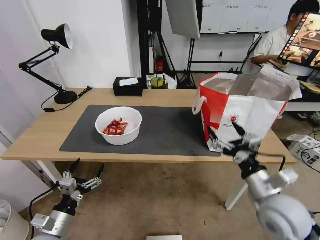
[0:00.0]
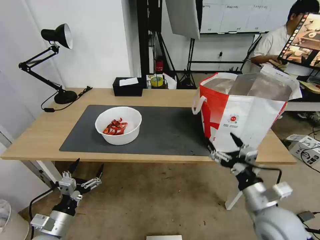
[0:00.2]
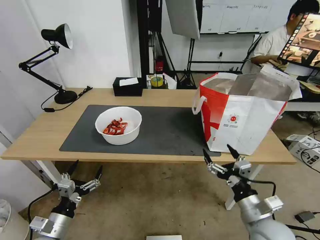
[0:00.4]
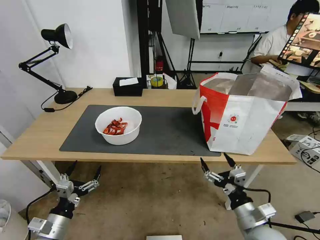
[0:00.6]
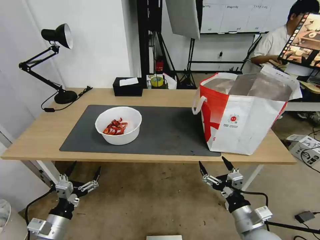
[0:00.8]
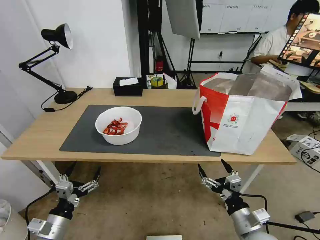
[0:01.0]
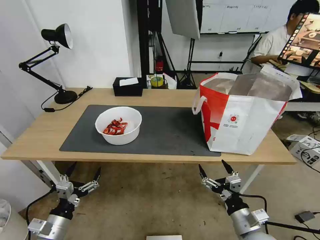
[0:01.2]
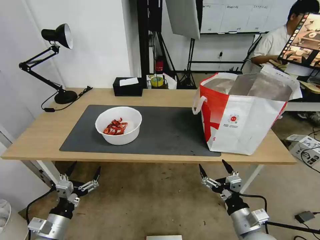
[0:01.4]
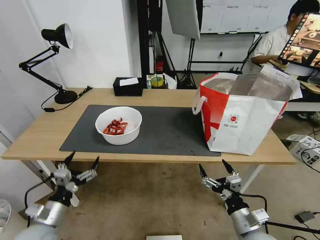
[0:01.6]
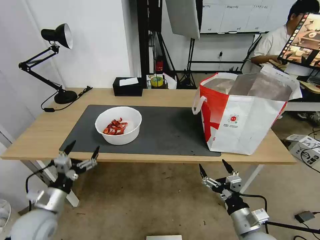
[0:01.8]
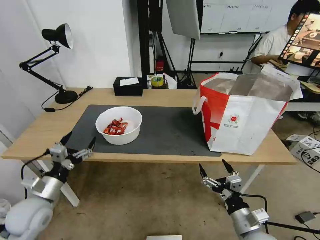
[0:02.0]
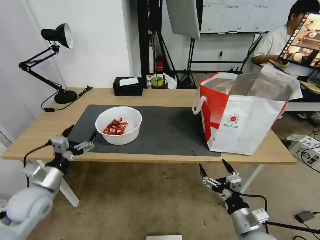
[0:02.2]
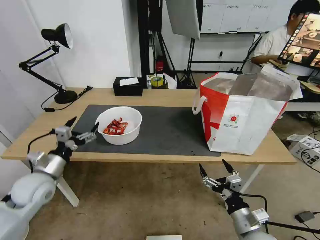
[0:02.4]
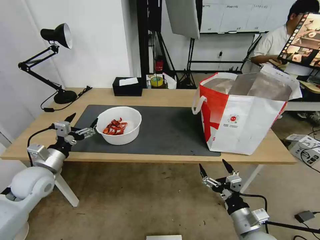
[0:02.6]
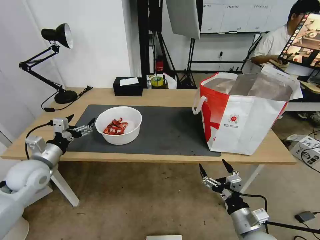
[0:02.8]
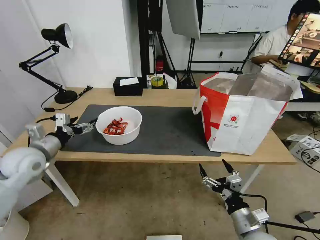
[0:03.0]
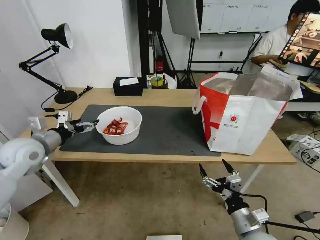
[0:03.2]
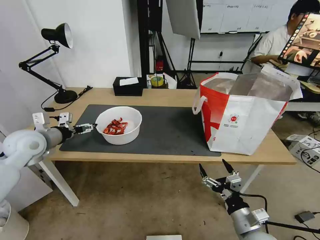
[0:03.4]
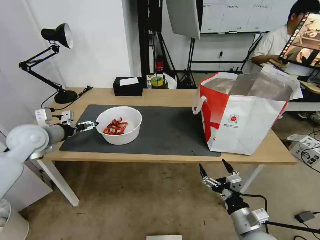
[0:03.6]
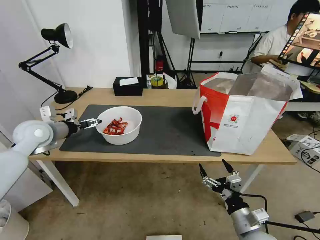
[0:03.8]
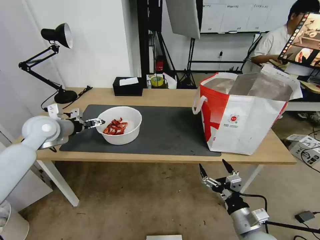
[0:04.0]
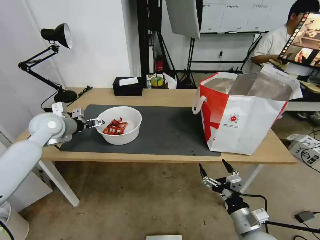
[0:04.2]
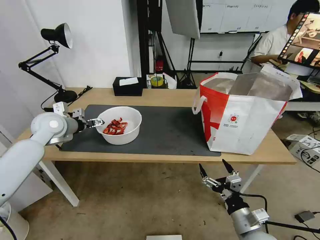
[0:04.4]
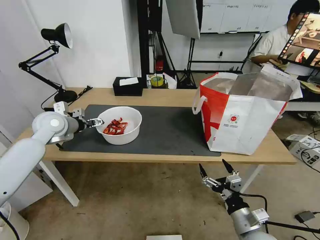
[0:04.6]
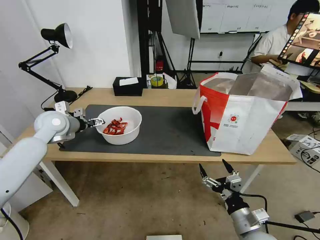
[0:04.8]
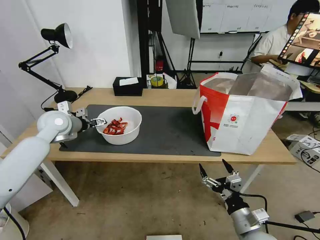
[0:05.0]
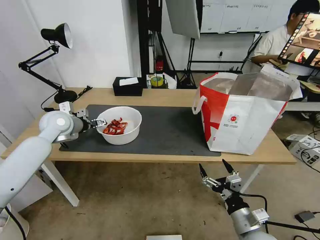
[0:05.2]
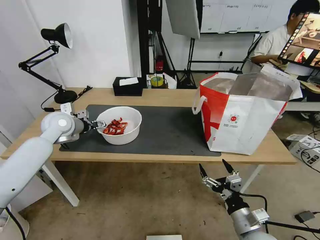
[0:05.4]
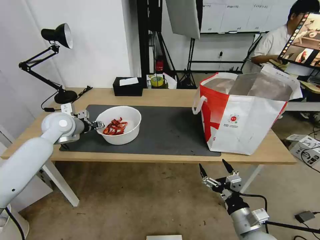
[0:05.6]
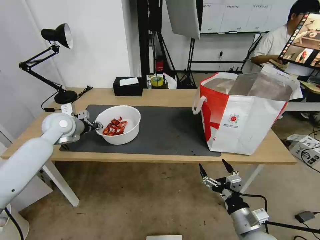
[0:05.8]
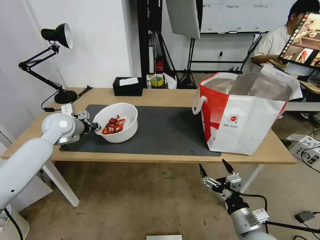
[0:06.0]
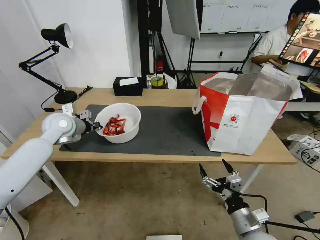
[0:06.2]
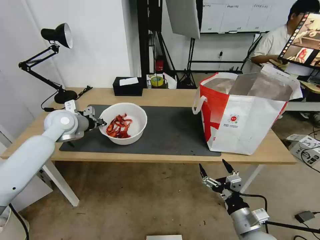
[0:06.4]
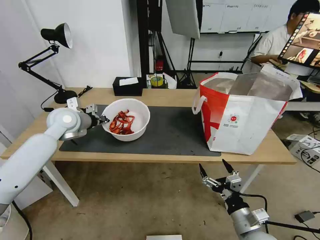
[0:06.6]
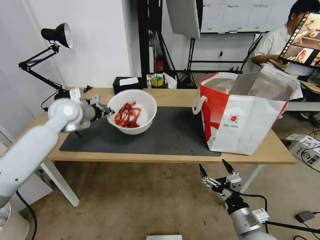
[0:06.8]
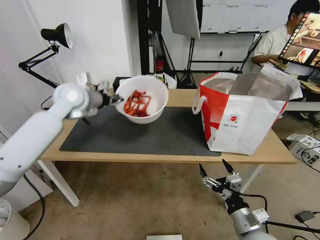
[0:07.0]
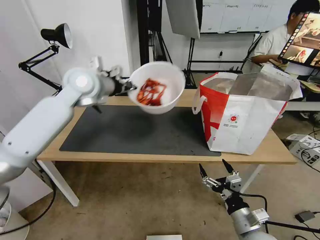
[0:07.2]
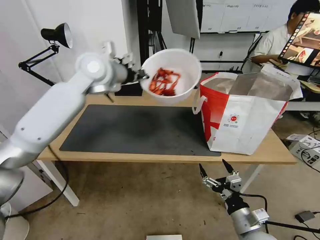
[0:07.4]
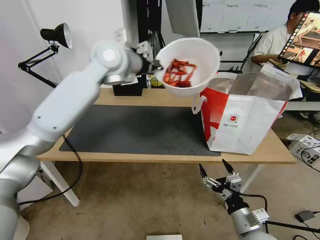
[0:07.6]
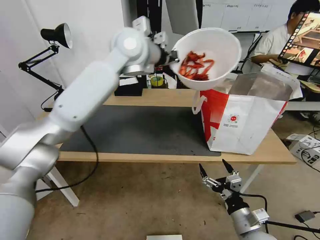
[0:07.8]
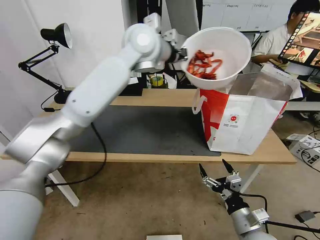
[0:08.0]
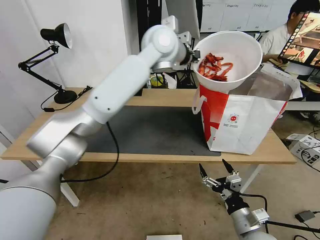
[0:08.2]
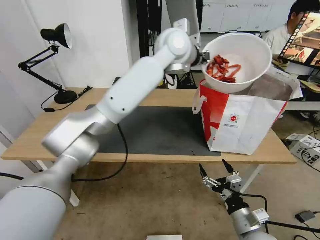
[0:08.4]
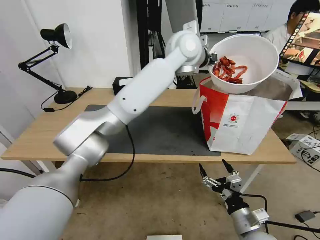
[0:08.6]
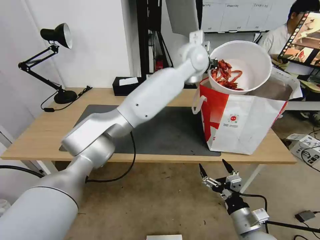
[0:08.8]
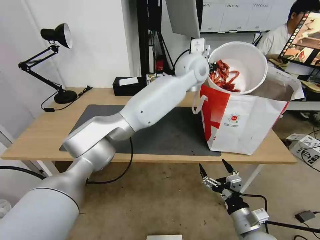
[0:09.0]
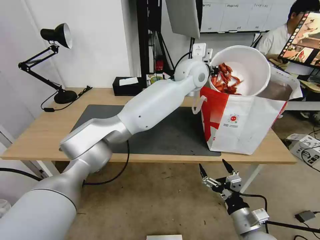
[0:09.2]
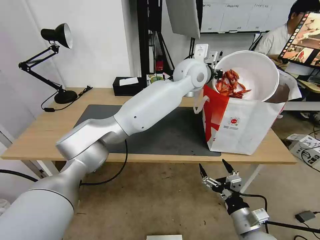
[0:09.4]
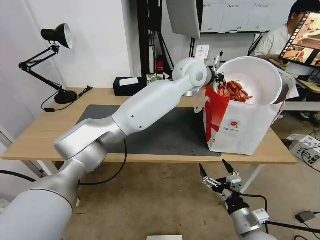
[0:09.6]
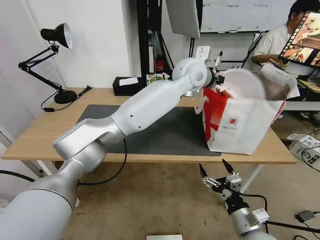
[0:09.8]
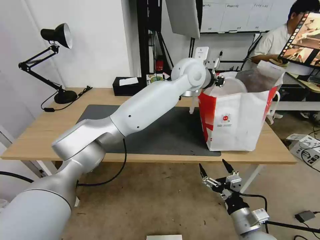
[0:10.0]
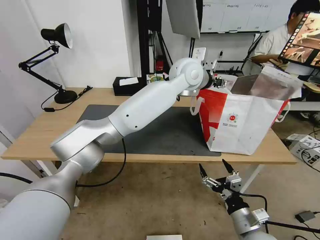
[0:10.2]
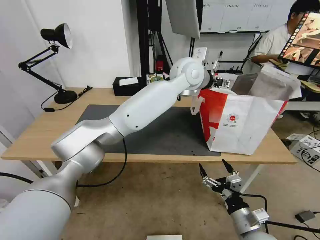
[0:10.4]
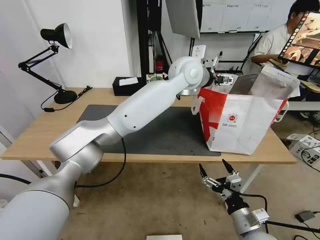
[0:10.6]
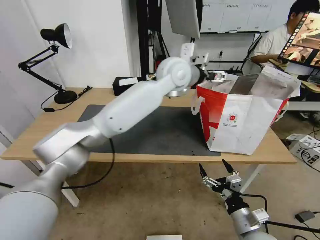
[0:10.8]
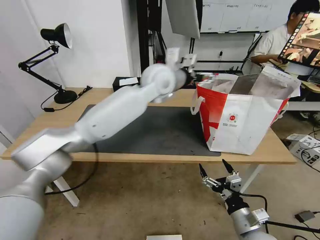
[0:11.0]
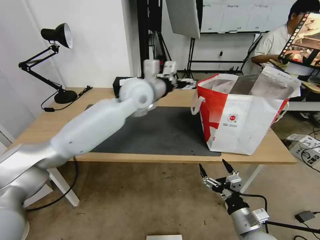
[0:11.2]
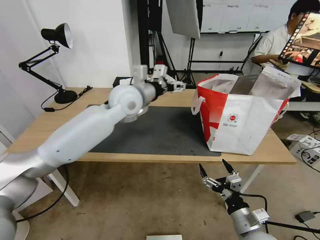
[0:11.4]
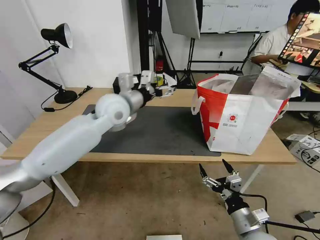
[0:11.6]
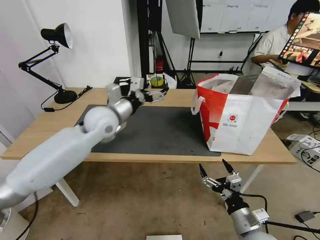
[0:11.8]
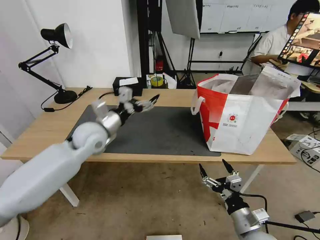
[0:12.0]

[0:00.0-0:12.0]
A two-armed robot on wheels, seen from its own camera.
Task of the whole recording: Pick up the trash from the table and place it into the takeout bag.
0:00.0 to 0:01.6: The right gripper shifts roughly 15 cm downward and backward.
0:01.6 to 0:03.0: The left gripper heads forward and upward, covering approximately 25 cm.
0:03.0 to 0:04.4: The left gripper heads forward, covering roughly 10 cm.
0:04.4 to 0:06.0: The left gripper closes its fingers.
0:06.0 to 0:07.6: The left gripper heads to the right and upward, covering some 30 cm.
0:07.6 to 0:09.0: The left gripper goes about 25 cm to the right.
0:09.0 to 0:10.4: The left gripper opens its fingers.
0:10.4 to 0:12.0: The left gripper travels to the left and downward by about 35 cm.

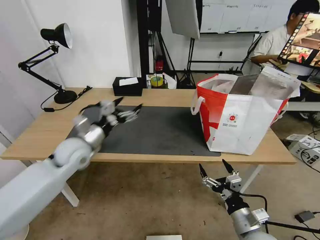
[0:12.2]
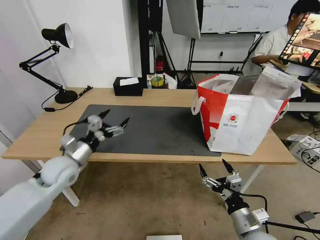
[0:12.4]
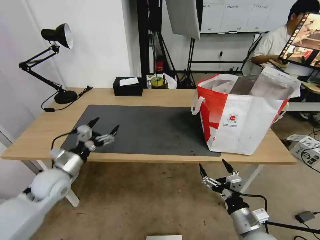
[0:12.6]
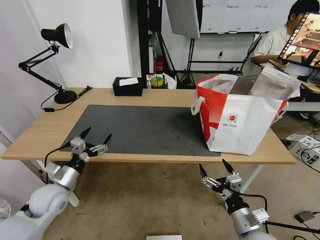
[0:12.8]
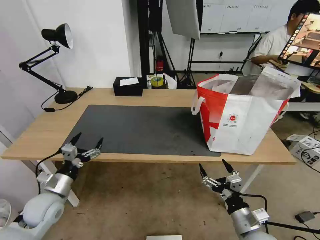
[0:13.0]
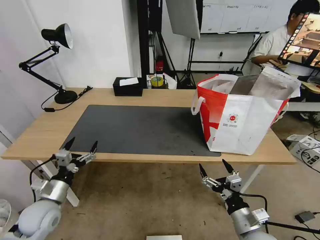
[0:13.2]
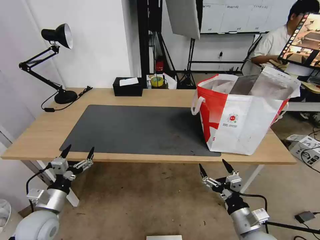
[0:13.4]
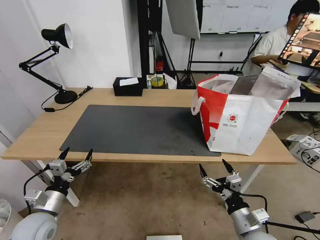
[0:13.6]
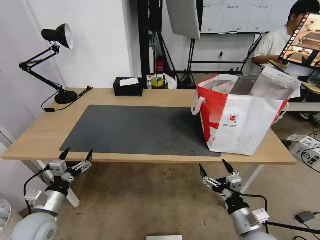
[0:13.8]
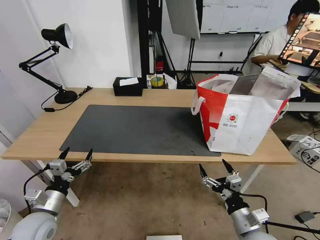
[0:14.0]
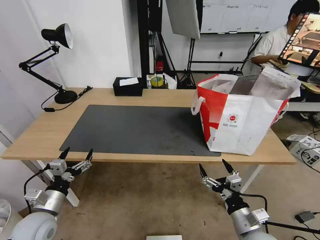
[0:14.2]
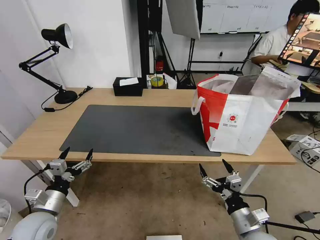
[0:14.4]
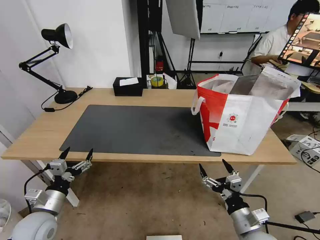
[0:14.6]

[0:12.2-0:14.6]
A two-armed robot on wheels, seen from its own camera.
Task of the whole recording: Pick up the trash from the table and place it into the takeout bag.
0:12.2 to 0:13.4: The left gripper heads backward, downward and to the left, covering some 20 cm.
0:13.4 to 0:14.6: The two grippers keep their place.

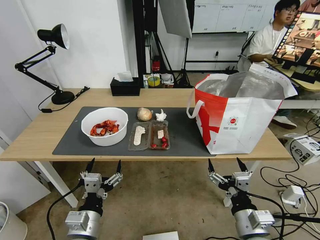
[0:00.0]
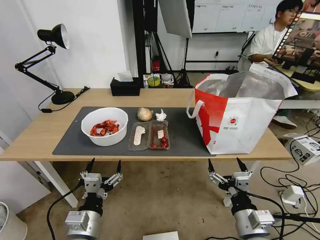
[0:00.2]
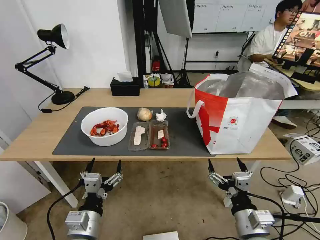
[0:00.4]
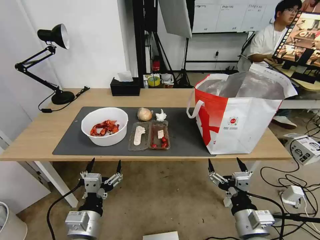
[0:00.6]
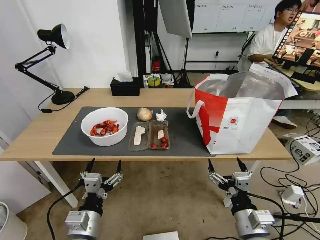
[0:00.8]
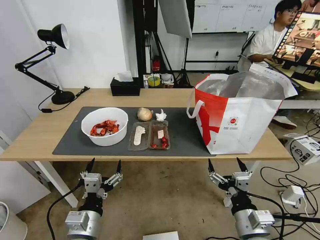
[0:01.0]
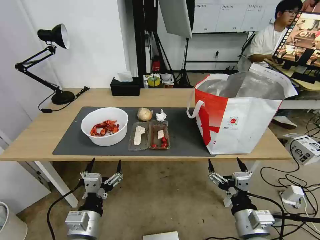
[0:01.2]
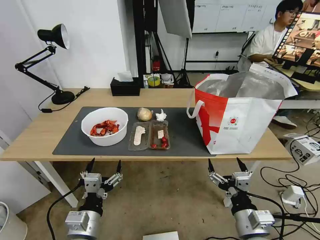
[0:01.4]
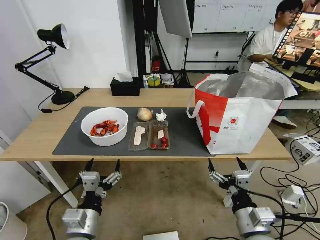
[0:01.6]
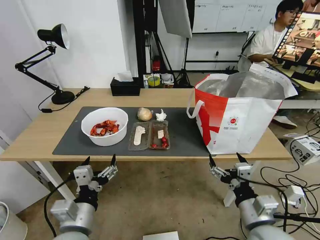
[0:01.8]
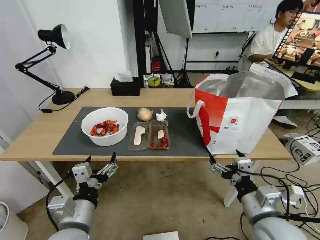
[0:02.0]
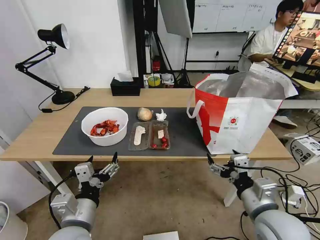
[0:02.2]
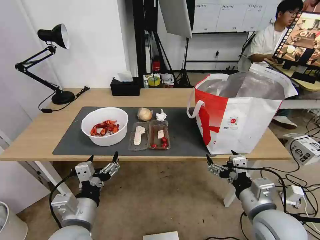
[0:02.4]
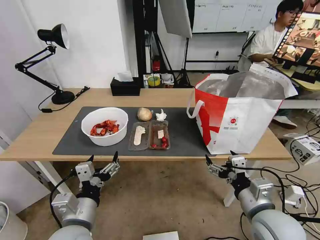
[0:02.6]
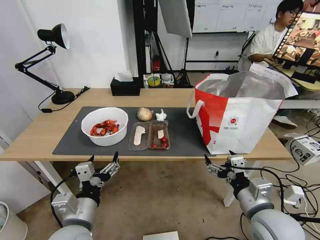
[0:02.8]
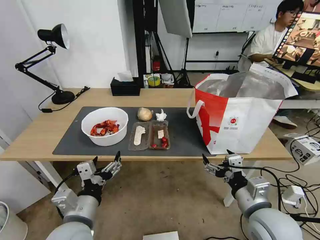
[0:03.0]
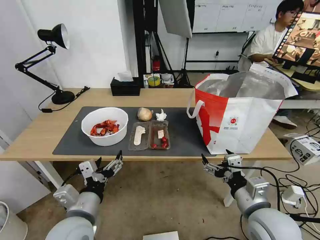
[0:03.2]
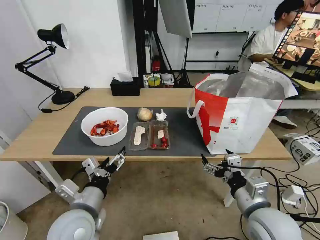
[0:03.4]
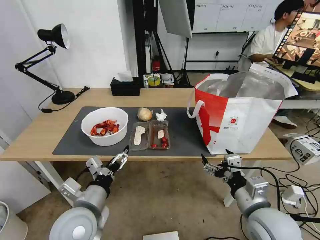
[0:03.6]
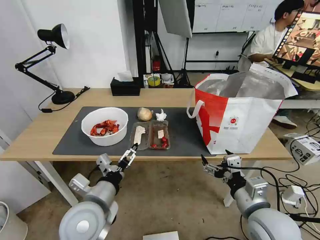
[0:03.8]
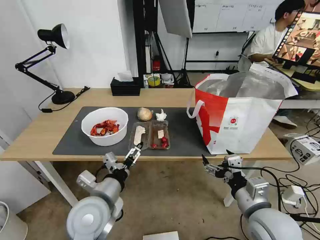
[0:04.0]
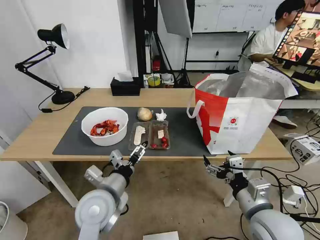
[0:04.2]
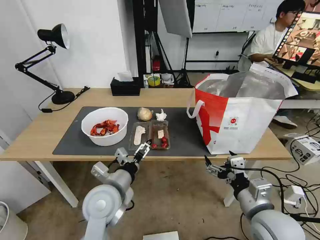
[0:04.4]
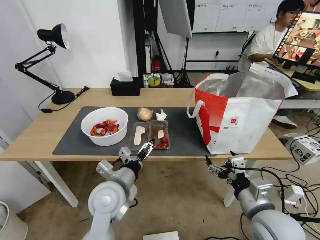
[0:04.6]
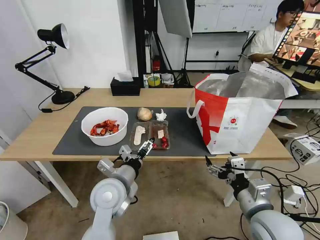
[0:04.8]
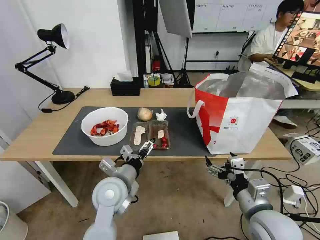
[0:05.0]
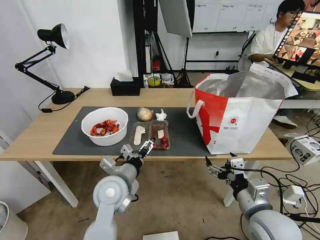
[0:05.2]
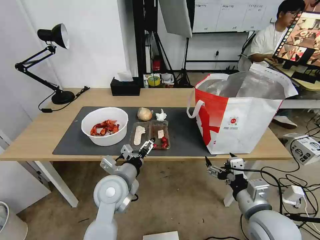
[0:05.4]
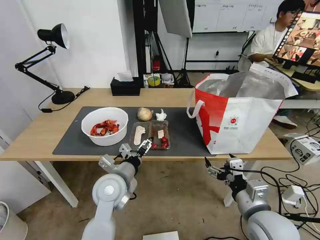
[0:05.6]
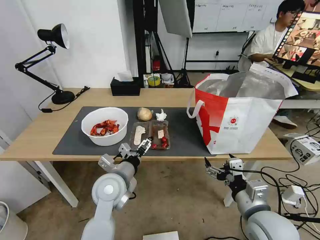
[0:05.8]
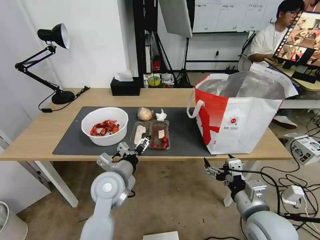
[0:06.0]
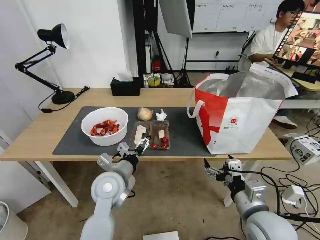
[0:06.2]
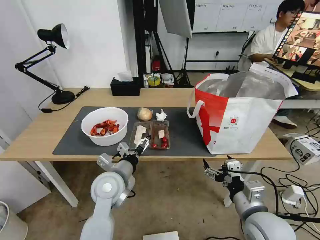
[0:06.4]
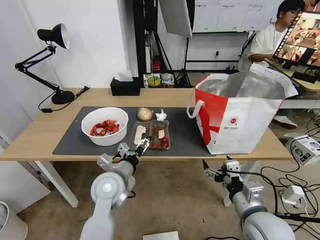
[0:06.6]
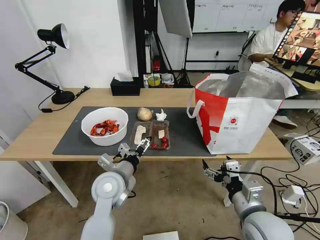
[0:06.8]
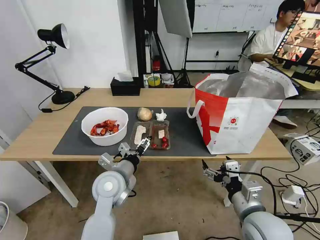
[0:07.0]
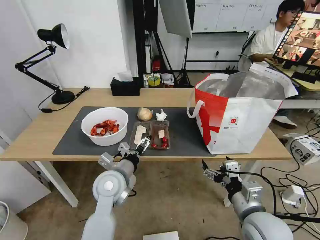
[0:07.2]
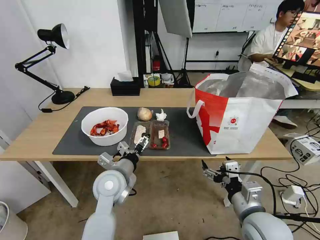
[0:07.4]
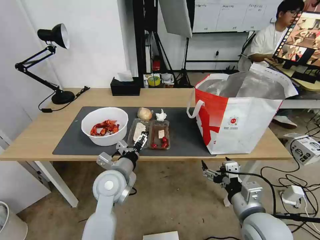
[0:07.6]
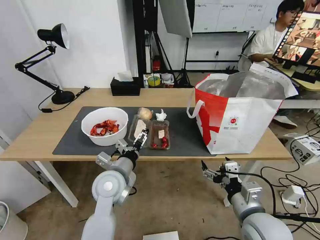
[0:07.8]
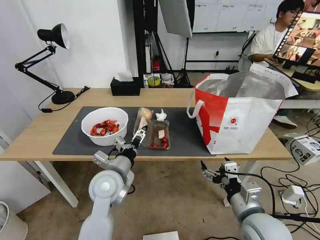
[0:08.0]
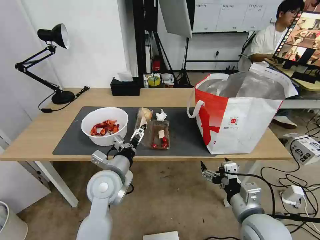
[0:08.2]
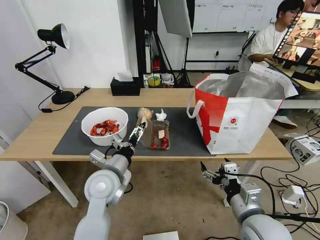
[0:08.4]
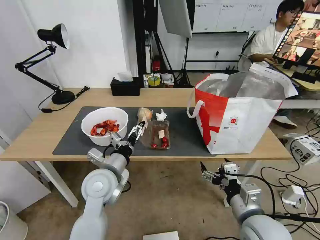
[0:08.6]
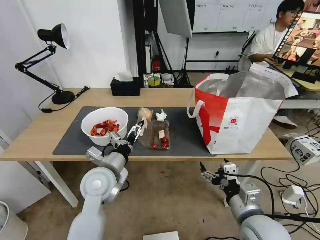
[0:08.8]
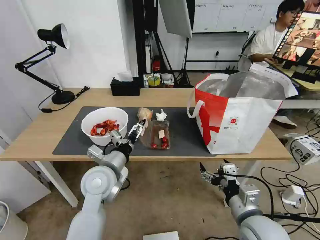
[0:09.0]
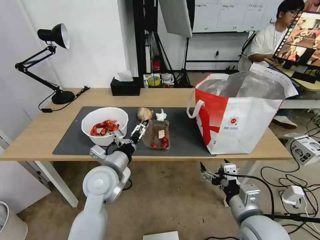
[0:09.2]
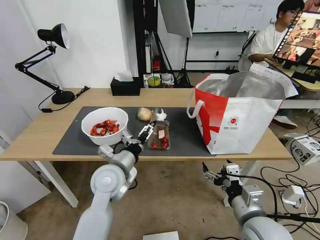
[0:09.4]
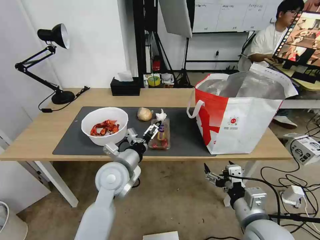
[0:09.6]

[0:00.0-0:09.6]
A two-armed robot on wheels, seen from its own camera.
Task of the whole recording: Pick up the trash from the table and place it into the takeout bag.
0:01.6 to 0:03.2: The left gripper shifts by roughly 5 cm. The right gripper moves upward, about 5 cm.
0:03.2 to 0:04.8: The left gripper is displaced forward and to the right by about 10 cm.
0:04.8 to 0:09.6: The grippers make only small movements.
